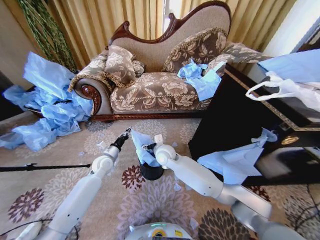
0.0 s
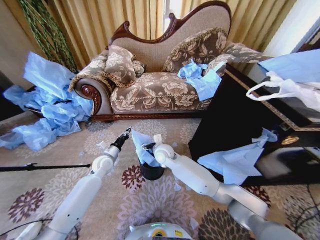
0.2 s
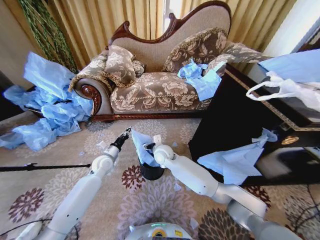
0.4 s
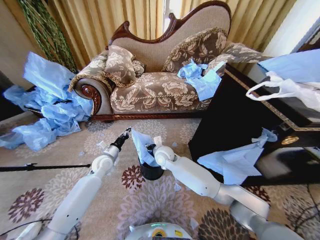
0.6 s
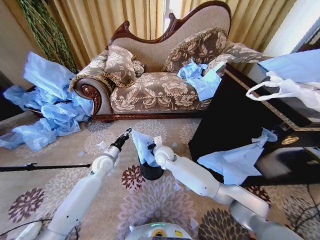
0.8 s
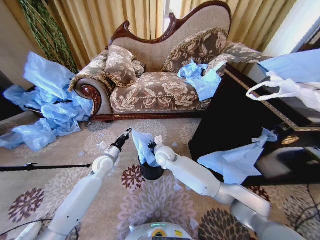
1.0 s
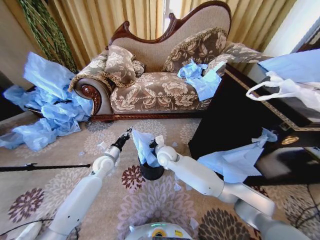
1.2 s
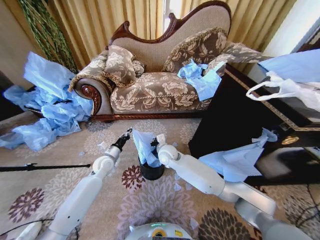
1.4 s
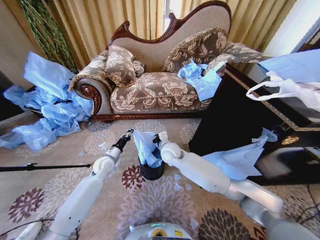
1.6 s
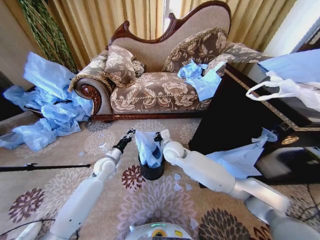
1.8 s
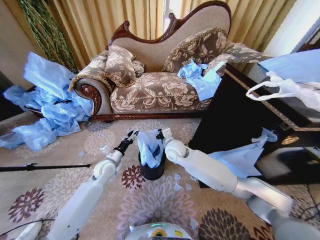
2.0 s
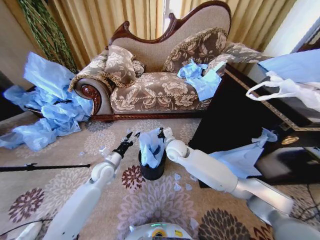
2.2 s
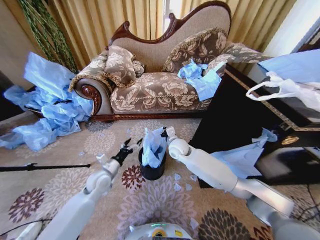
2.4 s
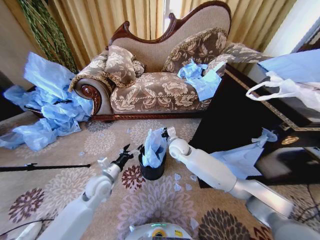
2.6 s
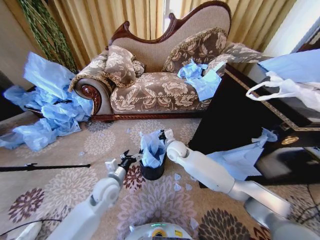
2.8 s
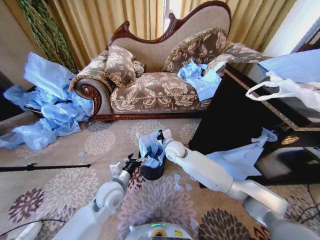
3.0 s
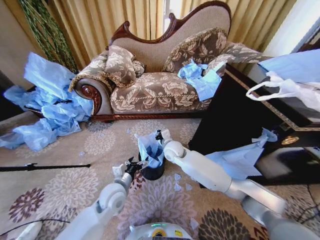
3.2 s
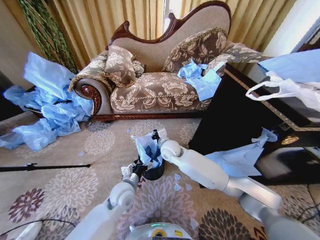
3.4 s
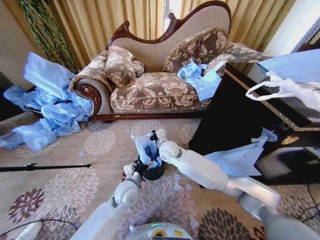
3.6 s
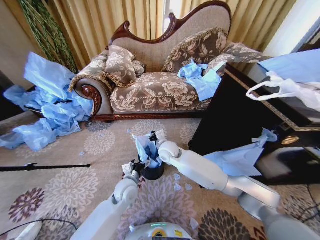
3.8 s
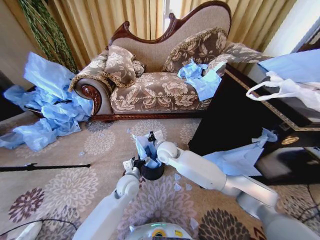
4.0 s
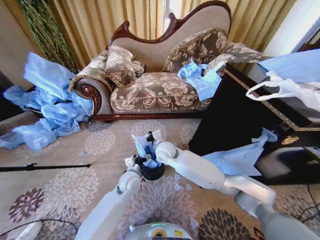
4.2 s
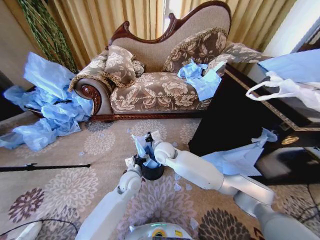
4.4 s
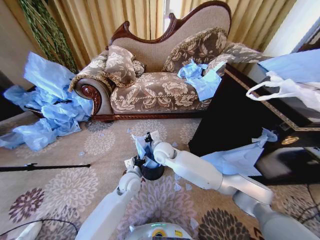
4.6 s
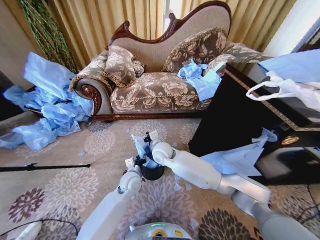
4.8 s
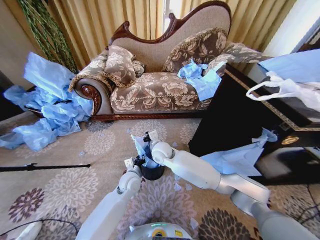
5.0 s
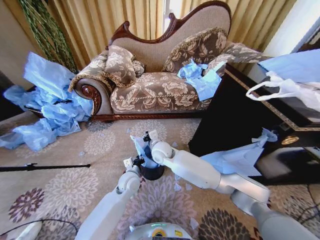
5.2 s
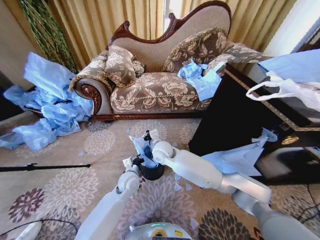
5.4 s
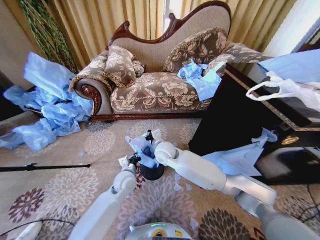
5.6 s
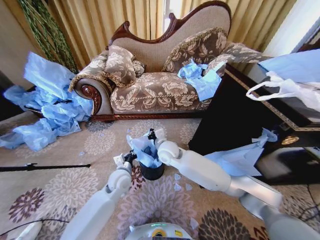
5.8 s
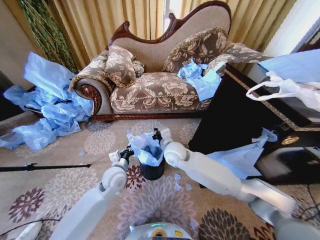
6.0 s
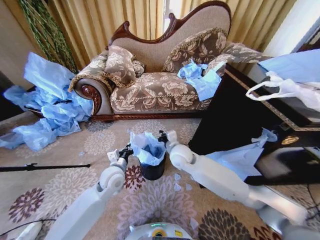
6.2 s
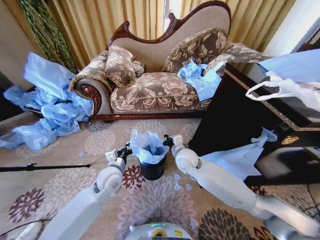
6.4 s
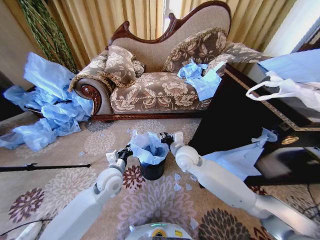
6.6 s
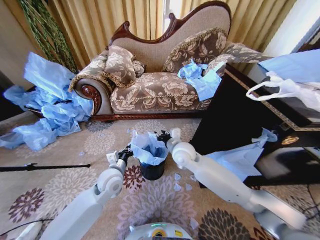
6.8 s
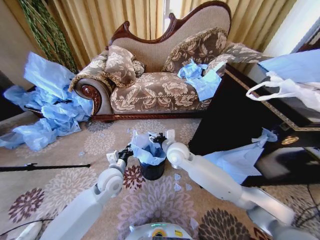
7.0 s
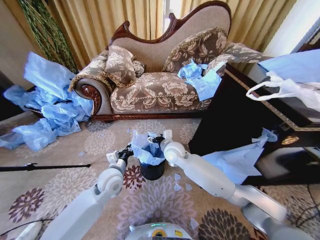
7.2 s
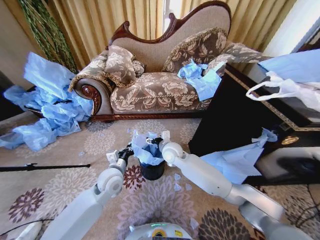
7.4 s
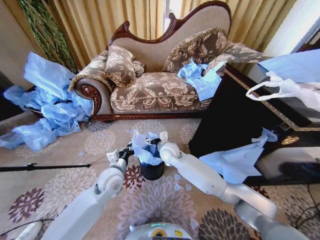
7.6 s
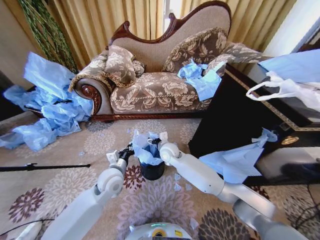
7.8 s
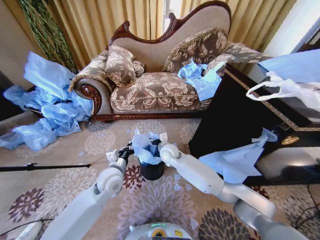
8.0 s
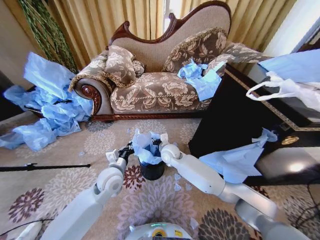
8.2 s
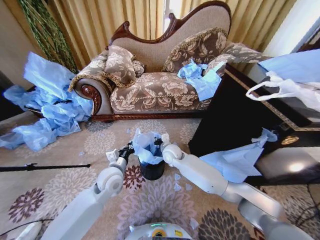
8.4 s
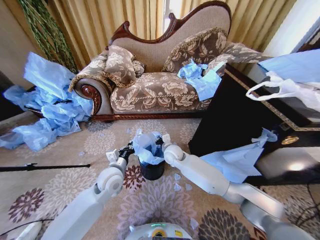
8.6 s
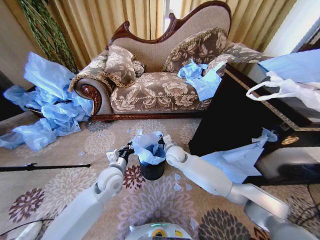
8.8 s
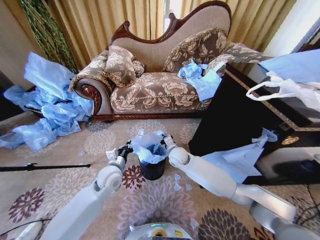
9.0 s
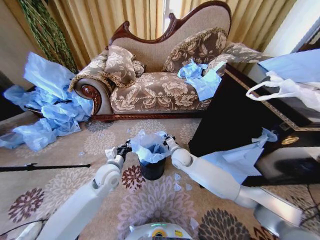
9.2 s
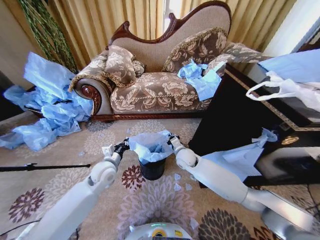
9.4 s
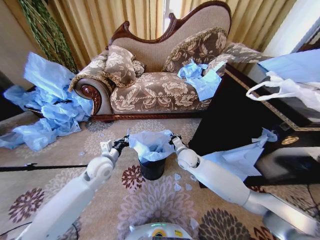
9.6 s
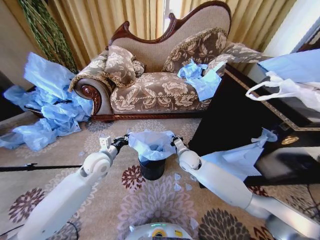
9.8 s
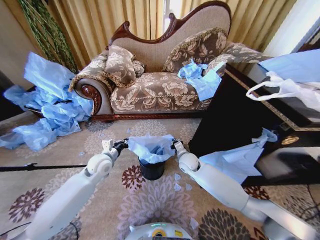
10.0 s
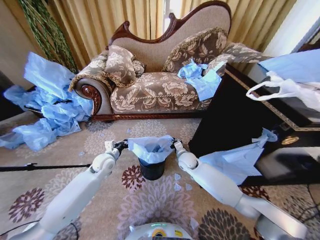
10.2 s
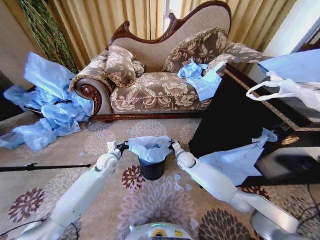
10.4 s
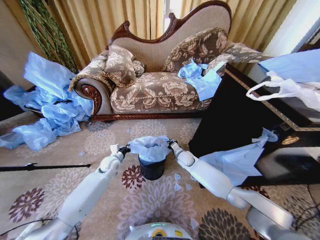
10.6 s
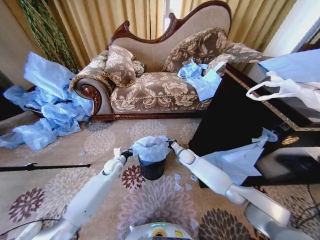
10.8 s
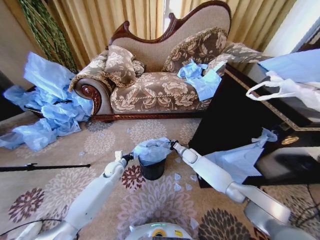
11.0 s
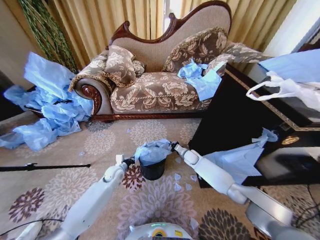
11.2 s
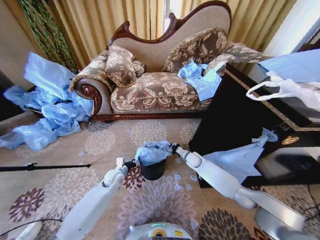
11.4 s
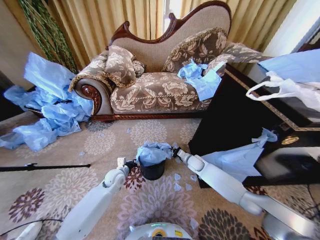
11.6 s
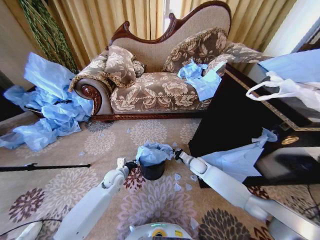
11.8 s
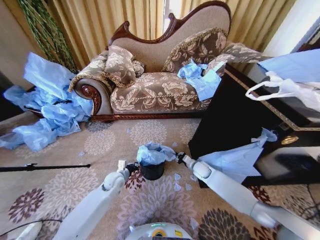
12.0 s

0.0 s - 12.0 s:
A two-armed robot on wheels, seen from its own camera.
Task of the whole recording: Place a garbage bag over the trash bin.
0.0 s - 1.6 s: The right gripper closes.
1.6 s - 3.0 s: The left gripper travels backward and to the right by some 15 cm, and opens its fingers.
3.0 s - 4.4 s: The left gripper heads forward and to the right, covering about 10 cm, while the right gripper moves to the left, some 5 cm.
4.4 s - 6.0 s: The right gripper changes place by roughly 5 cm, while the left gripper shifts roughly 10 cm to the left and upward, and closes its fingers.
6.0 s - 7.6 s: The right gripper ends up some 5 cm from where it was, and opens its fingers.
7.6 s - 9.0 s: The right gripper changes place by roughly 5 cm, and closes up.
9.0 s - 10.4 s: The right gripper travels downward and to the right by some 10 cm; the left gripper is displaced forward and to the left by approximately 10 cm.
10.4 s - 12.0 s: The left gripper is displaced downward and backward by about 10 cm, while the right gripper is displaced to the right and downward by about 10 cm.

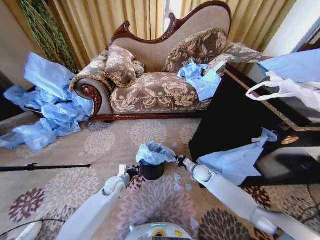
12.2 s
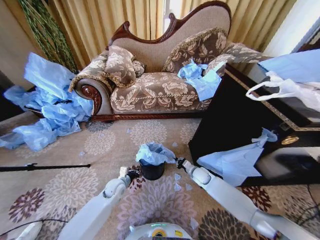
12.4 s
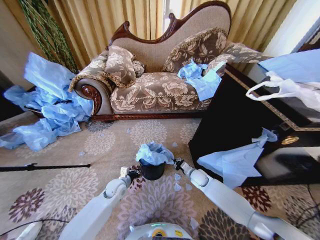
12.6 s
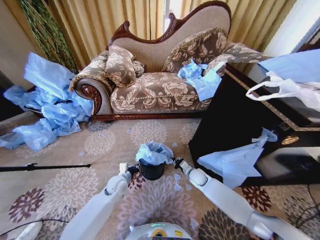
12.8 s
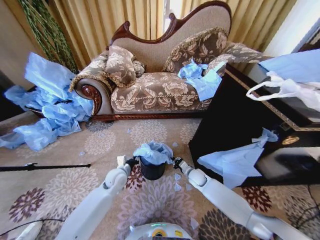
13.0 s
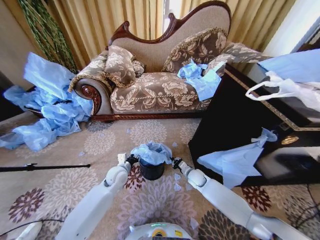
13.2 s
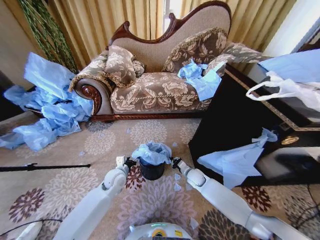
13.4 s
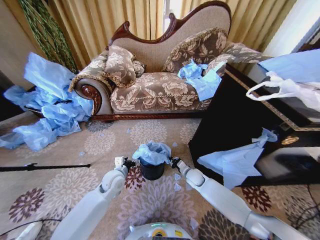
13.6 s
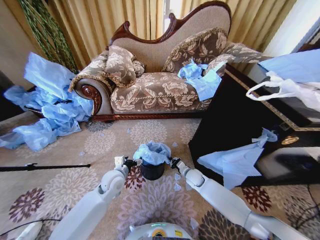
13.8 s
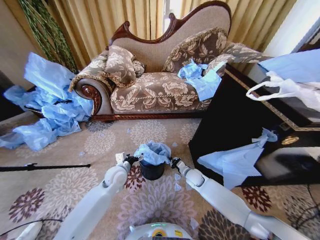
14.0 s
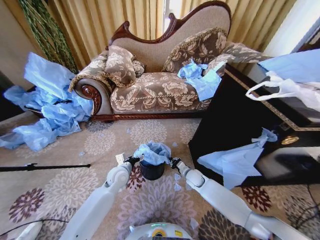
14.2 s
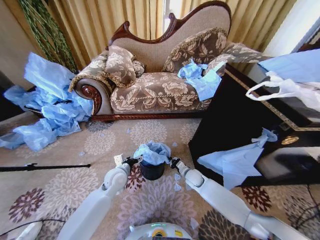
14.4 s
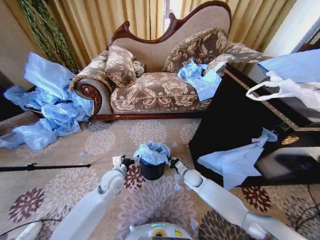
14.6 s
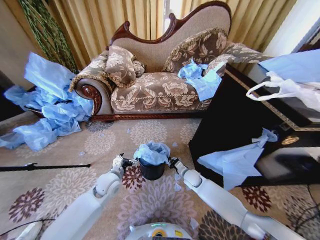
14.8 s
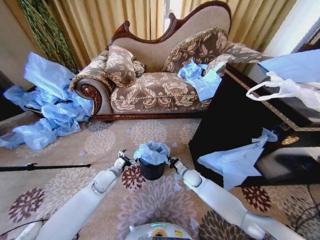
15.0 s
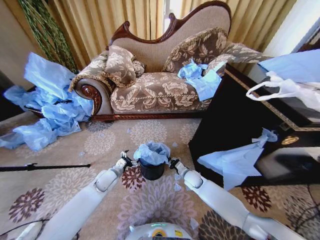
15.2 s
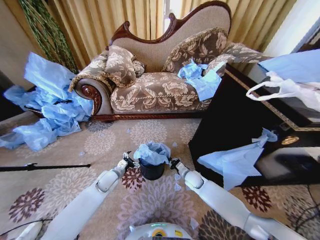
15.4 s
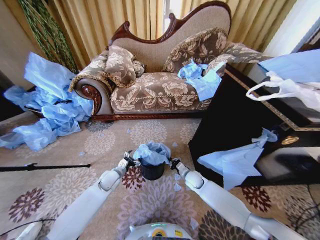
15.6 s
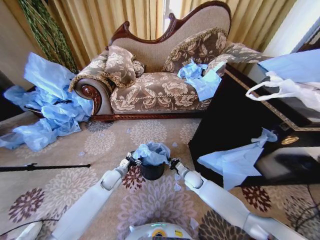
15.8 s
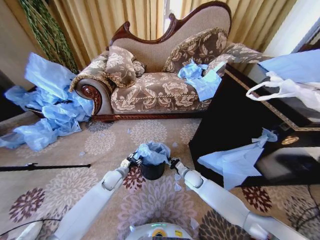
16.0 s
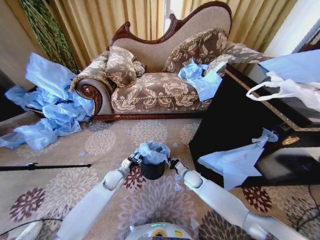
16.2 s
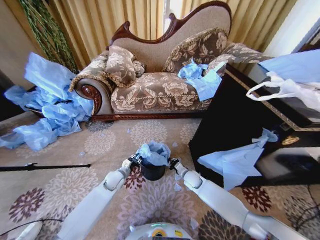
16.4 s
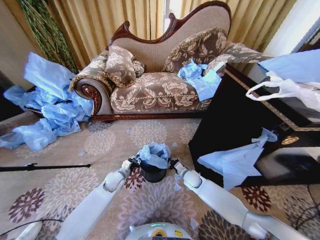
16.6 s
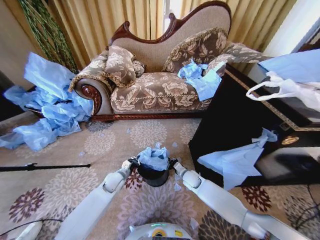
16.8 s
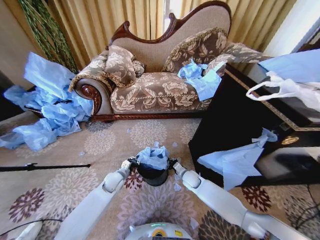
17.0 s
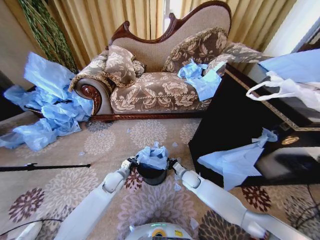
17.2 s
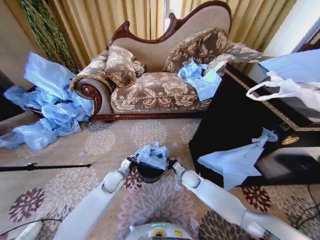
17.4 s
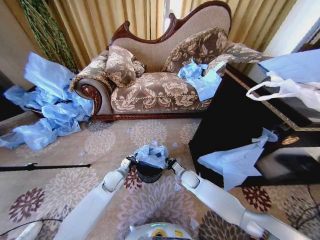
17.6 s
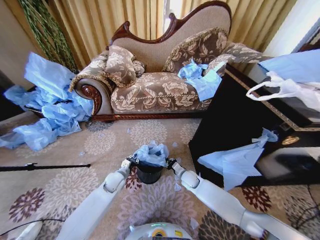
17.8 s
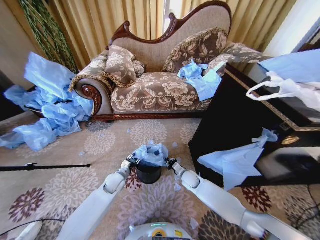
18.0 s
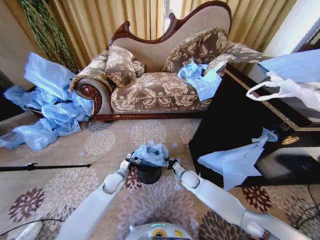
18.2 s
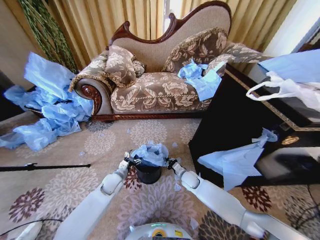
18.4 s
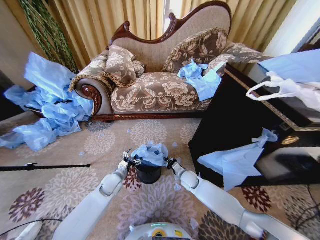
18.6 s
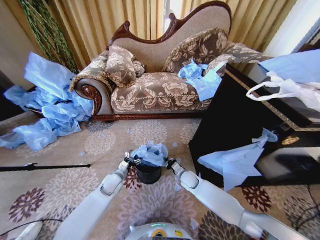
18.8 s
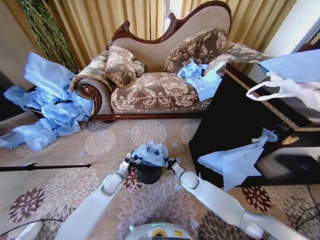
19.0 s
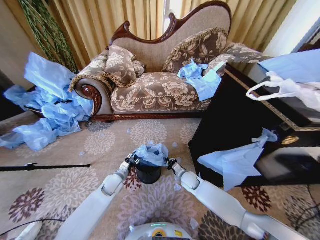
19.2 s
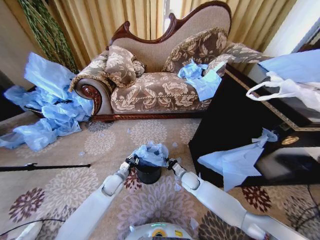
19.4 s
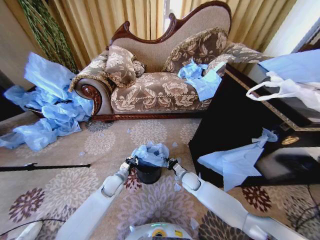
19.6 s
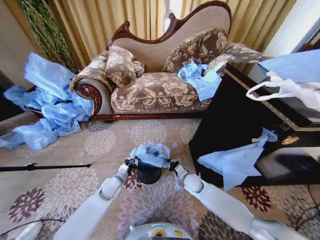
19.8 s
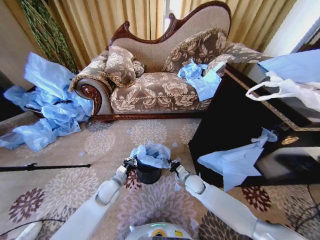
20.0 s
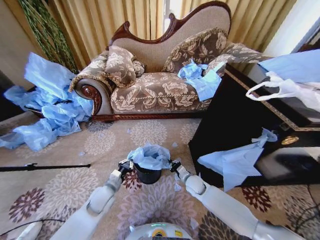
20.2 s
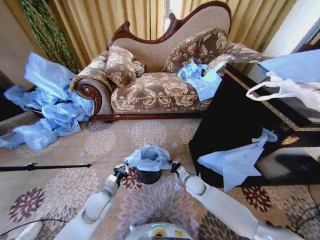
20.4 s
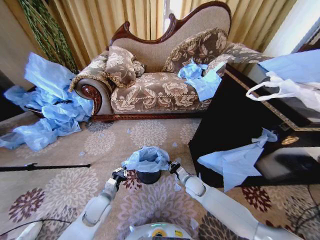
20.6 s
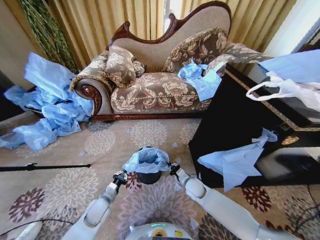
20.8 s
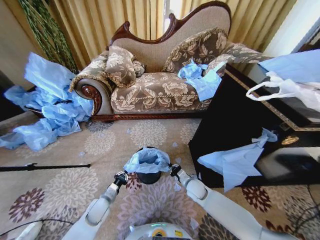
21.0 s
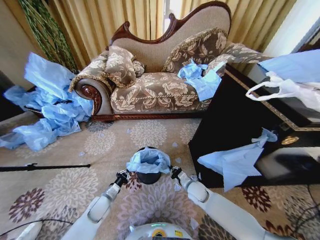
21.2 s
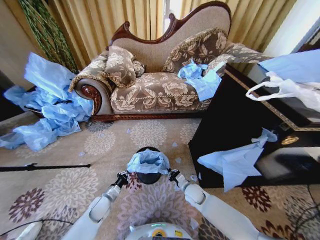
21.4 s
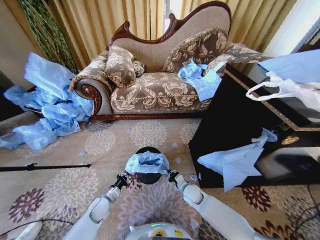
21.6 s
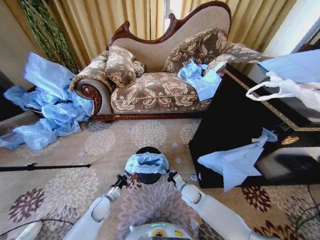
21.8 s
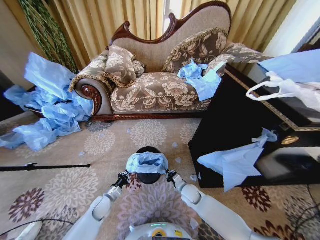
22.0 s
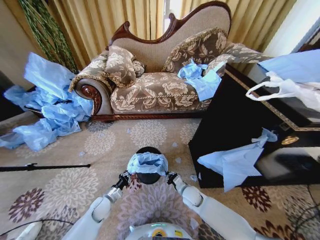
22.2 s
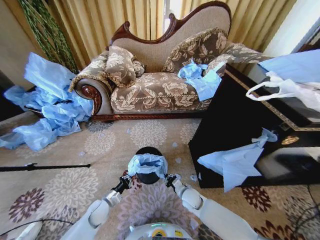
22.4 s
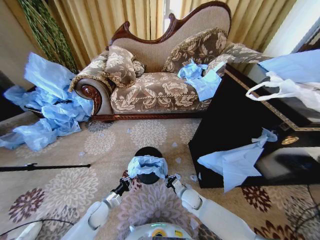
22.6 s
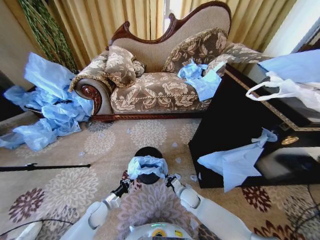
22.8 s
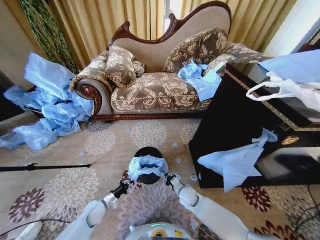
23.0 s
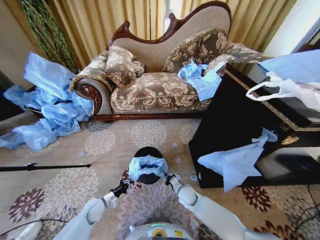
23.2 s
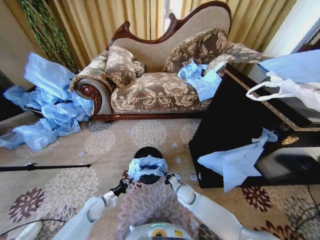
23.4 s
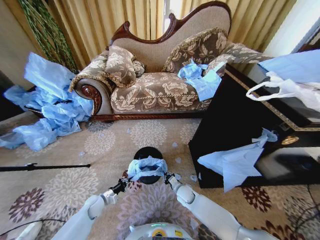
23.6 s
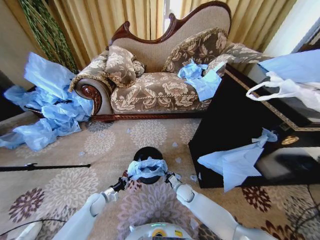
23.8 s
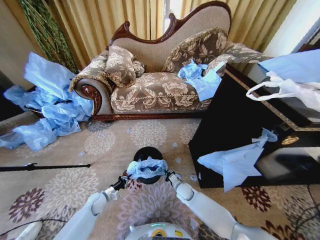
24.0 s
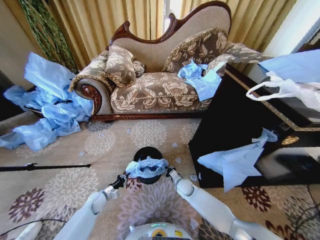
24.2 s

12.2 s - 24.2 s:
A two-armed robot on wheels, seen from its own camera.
Task of the whole recording: Place a garbage bag over the trash bin.
12.2 s - 13.8 s: The right gripper shifts by roughly 5 cm. Meanwhile the left gripper moves upward, approximately 10 cm, and opens up.
13.8 s - 15.2 s: The left gripper travels to the left and downward by roughly 10 cm.
15.2 s - 16.6 s: The left gripper closes up.
16.6 s - 18.2 s: The left gripper opens.
18.2 s - 19.8 s: The left gripper closes its fingers.
19.8 s - 21.2 s: The left gripper travels backward and downward by some 10 cm.
21.2 s - 22.6 s: The right gripper ends up roughly 5 cm from where it was.
22.6 s - 24.2 s: The left gripper travels forward and to the left by approximately 10 cm. The right gripper travels forward by some 5 cm.
